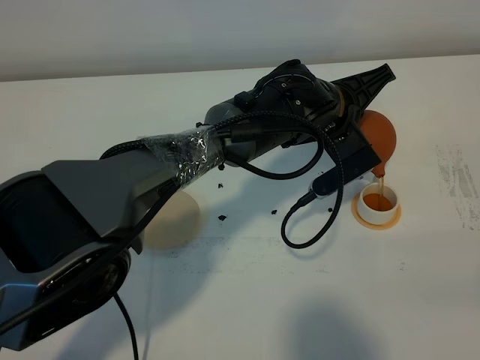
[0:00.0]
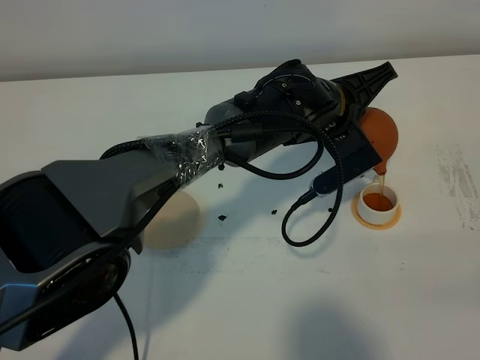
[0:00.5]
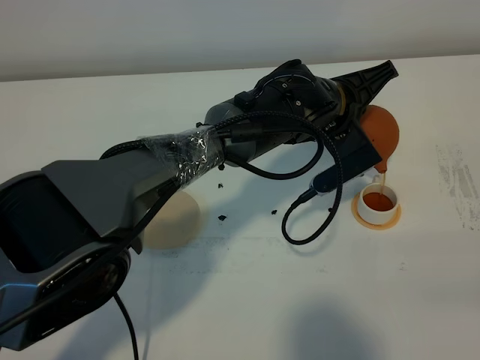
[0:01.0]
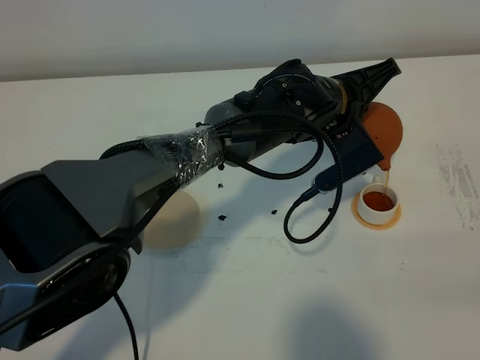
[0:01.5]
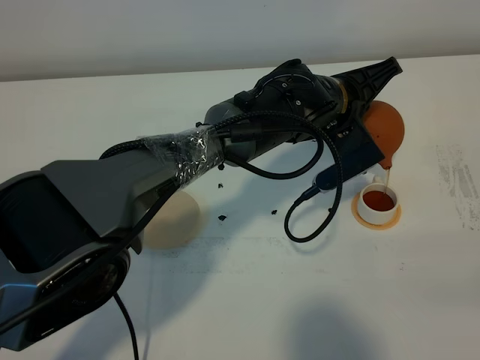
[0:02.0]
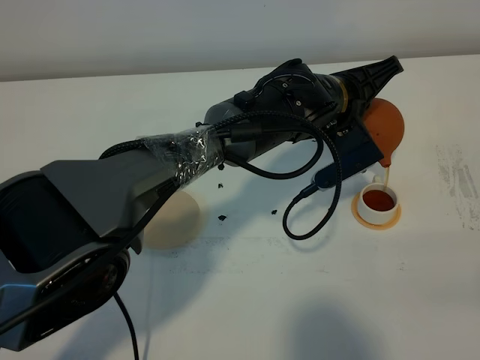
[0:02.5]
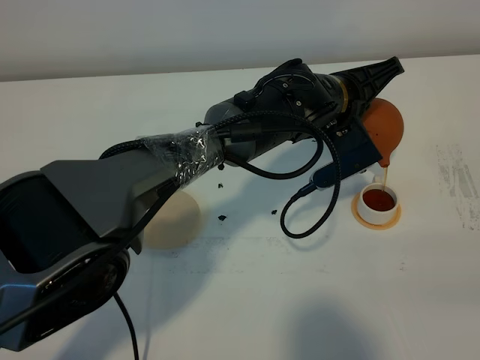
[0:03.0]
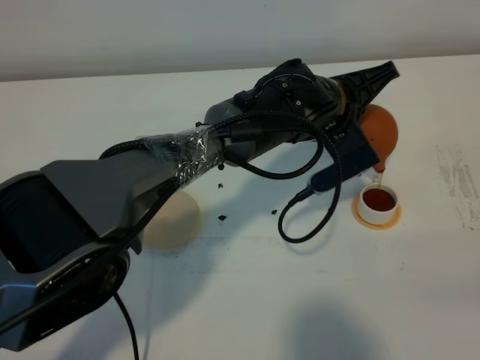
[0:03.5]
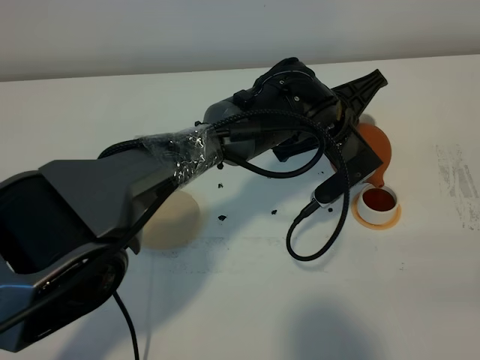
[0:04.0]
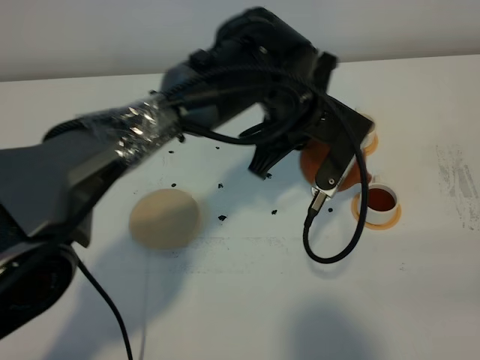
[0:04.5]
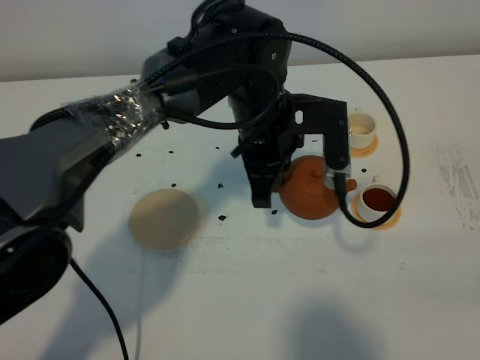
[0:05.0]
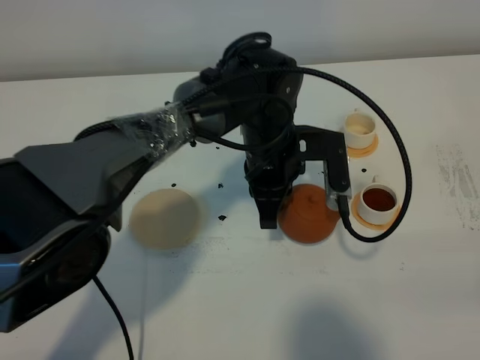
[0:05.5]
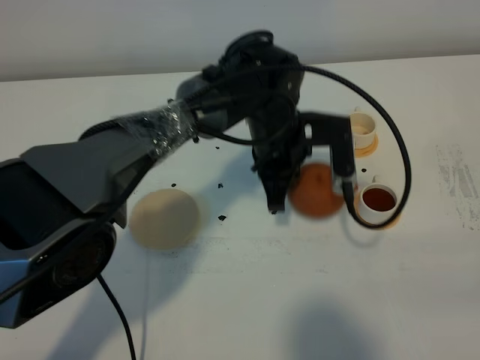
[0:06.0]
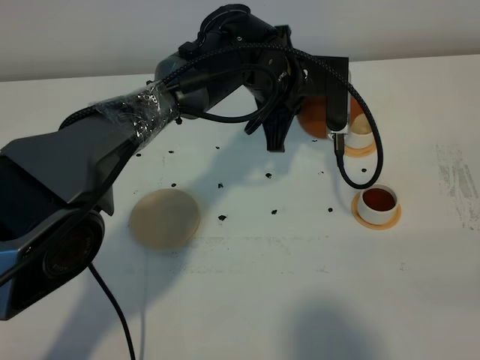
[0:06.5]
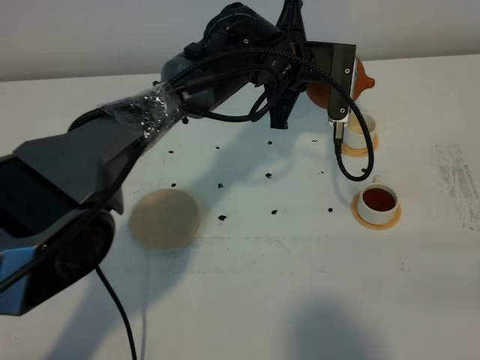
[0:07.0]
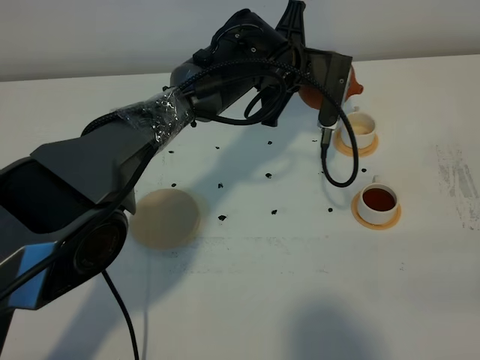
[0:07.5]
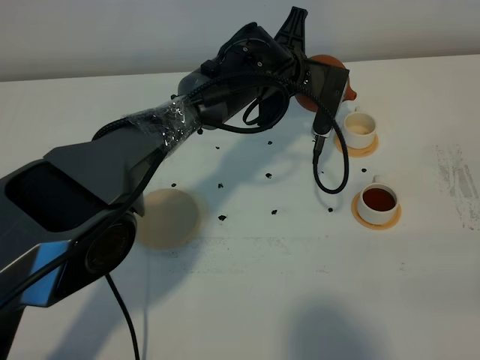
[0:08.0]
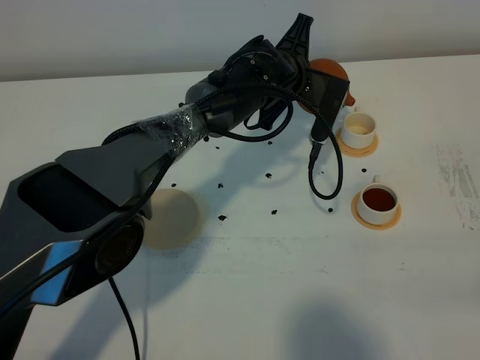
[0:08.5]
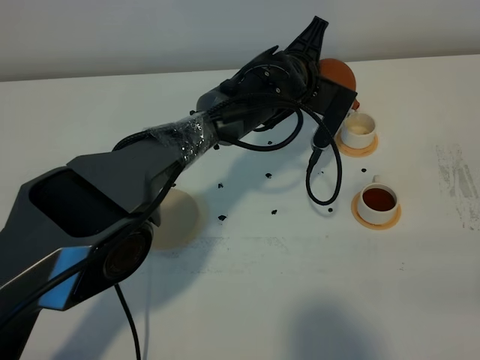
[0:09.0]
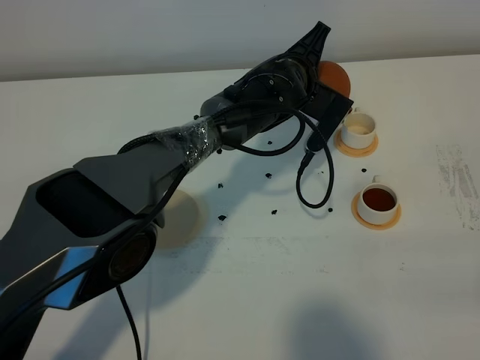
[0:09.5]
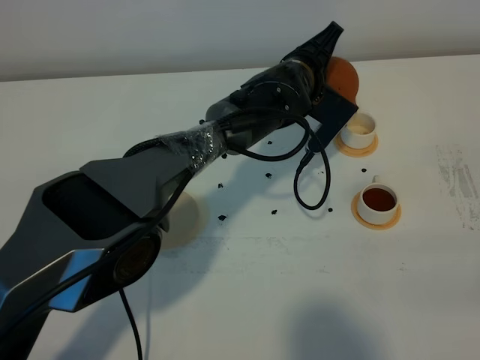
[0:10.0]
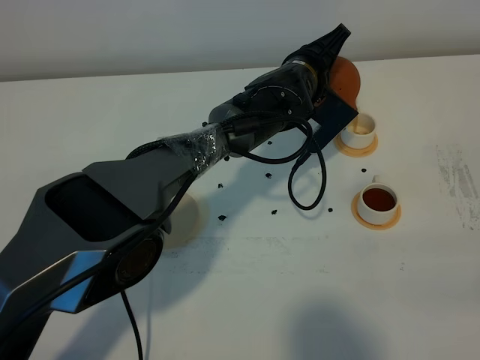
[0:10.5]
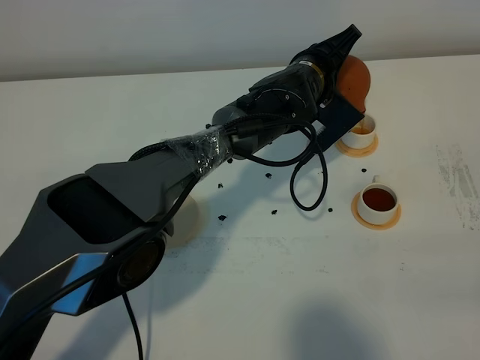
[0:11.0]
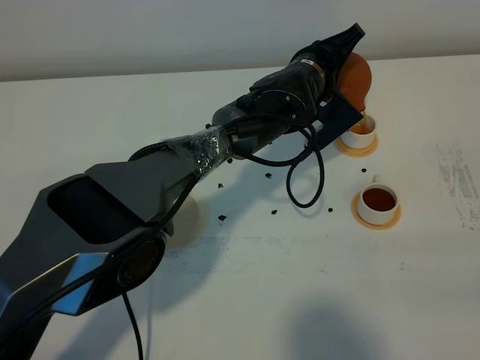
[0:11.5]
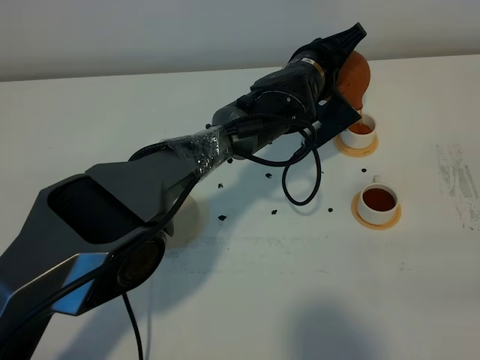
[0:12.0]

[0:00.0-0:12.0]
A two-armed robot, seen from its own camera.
Task of the whole recording: grasp the brown teapot and pour the tea into the two white teacups one by one, put the brown teapot back in its original place.
Step, 0:00.0 to 0:04.5: Pour tea into the teacup with the left gripper.
0:00.0 to 0:02.0: Both grippers stay put.
0:02.0 to 0:04.0: The grippers move only a little.
0:04.0 to 0:06.0: The left gripper travels to the left by roughly 5 cm.
0:06.0 to 0:08.0: The left gripper heads forward, covering roughly 10 cm.
0:10.0 to 0:12.0: The grippers stay close to where they were, moving slightly.

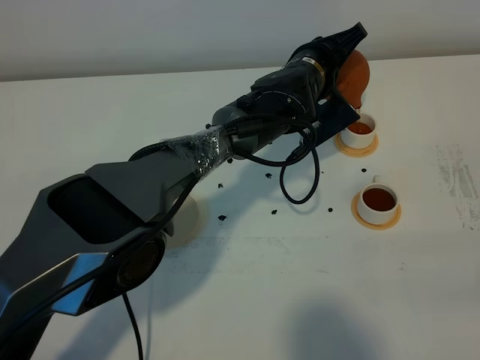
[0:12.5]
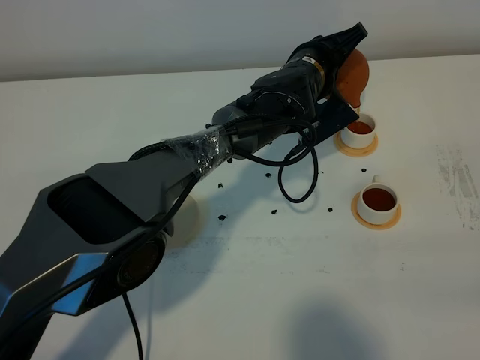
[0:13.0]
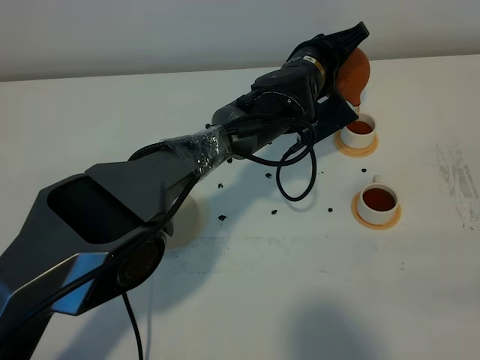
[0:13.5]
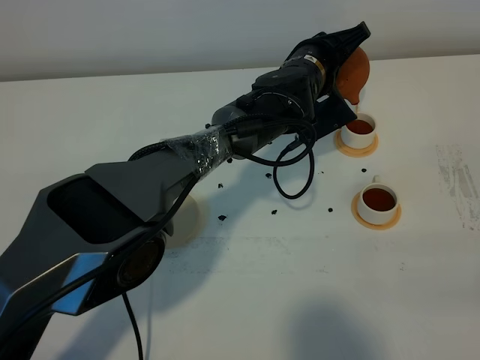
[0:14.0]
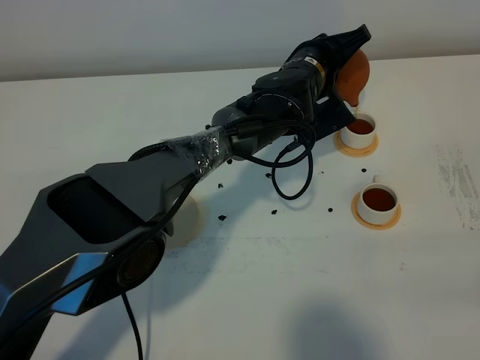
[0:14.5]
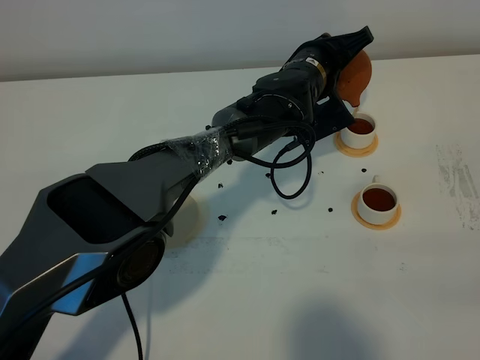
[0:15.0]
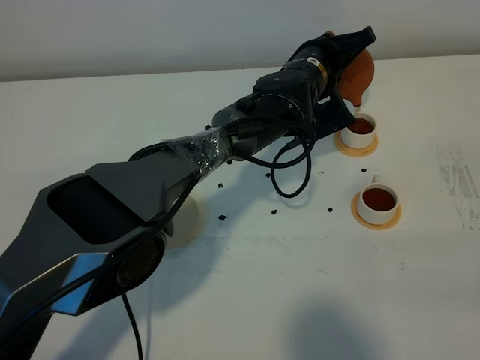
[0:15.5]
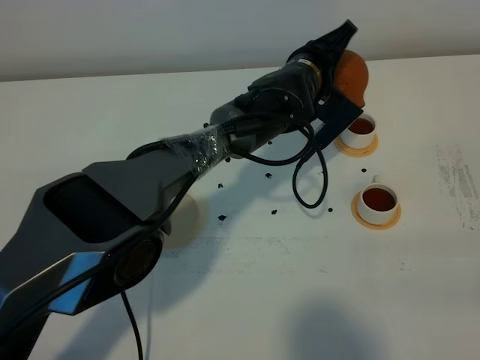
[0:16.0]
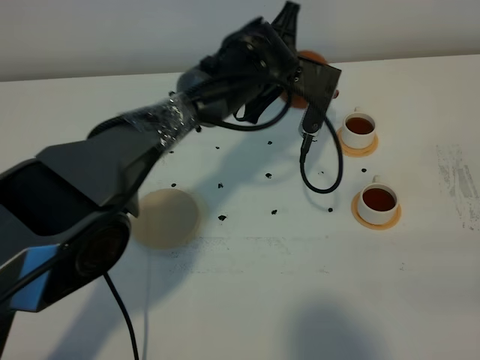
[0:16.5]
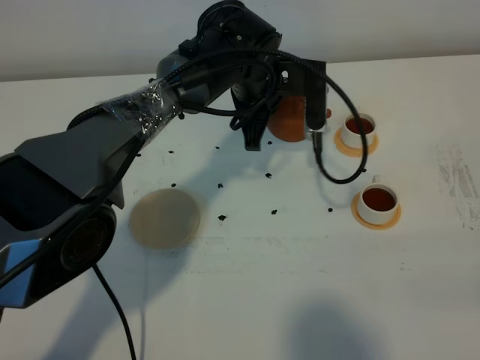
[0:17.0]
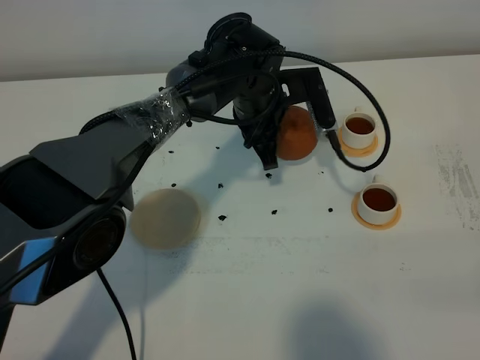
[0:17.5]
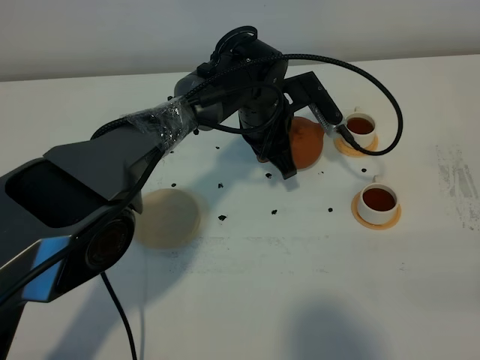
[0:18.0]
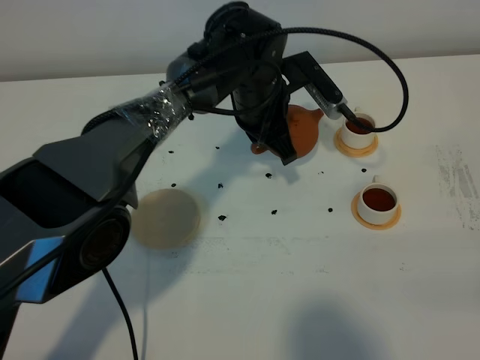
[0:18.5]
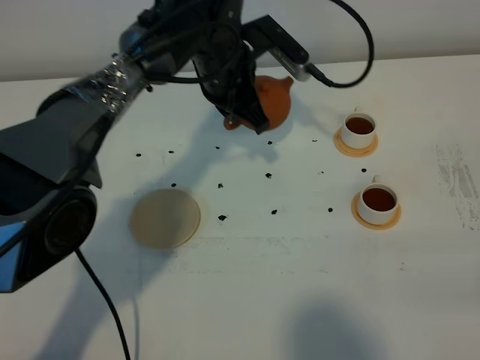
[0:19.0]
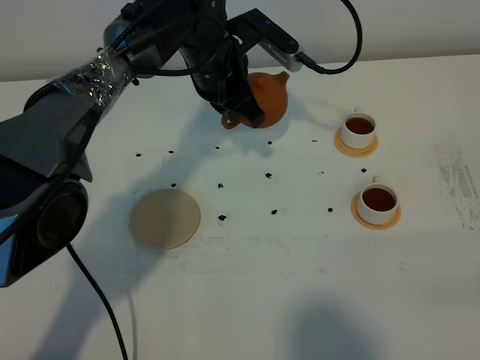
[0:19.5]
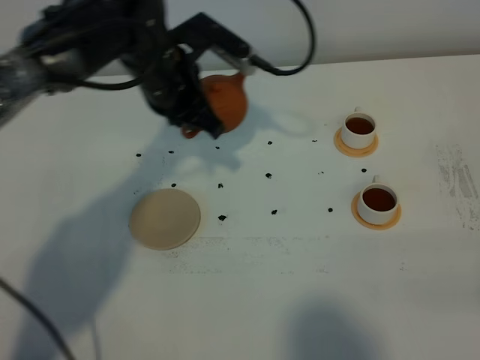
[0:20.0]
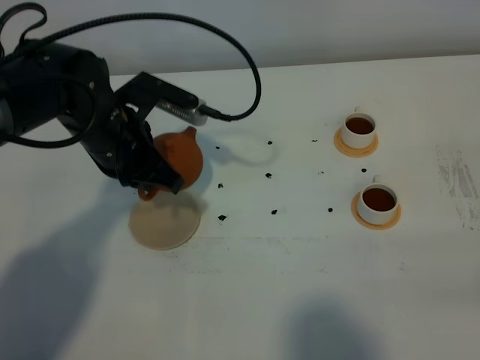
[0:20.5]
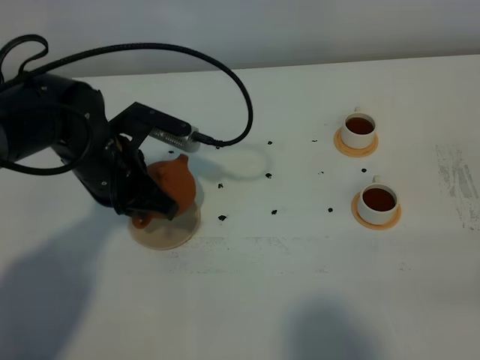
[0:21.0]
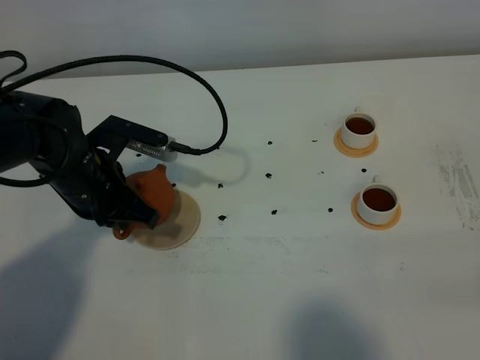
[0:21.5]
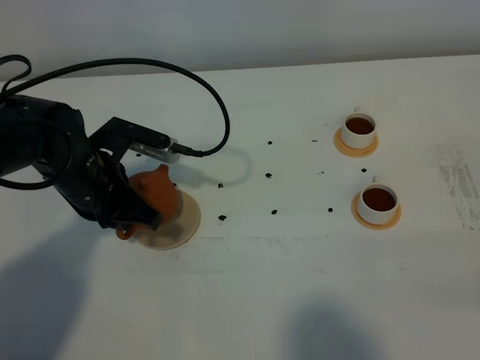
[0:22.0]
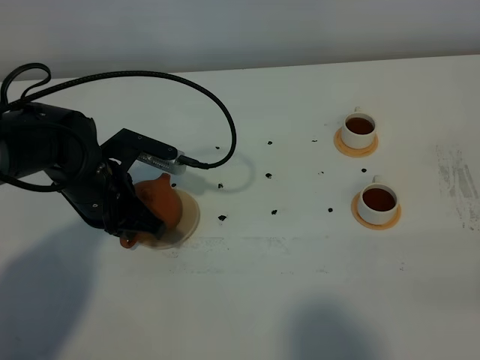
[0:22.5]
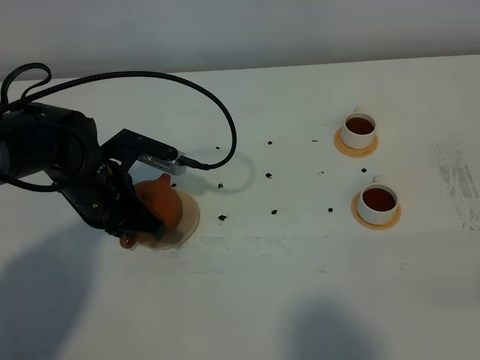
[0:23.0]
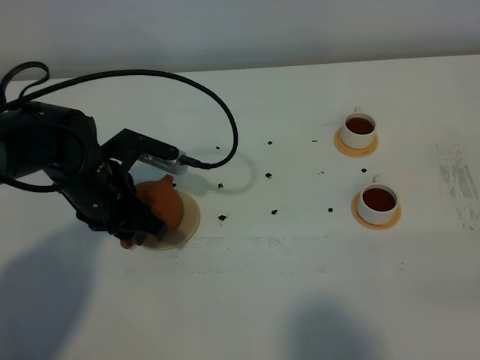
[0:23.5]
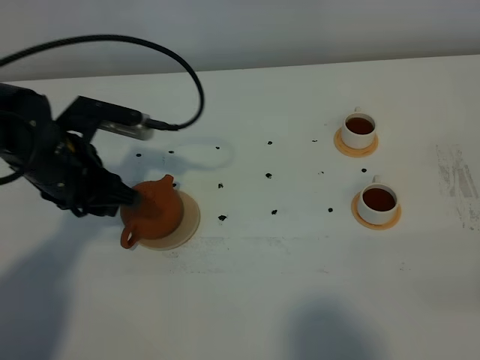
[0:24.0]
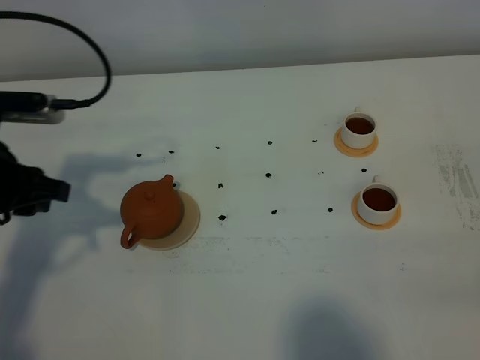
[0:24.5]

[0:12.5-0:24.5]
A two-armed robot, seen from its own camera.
Task of the whole recording: grasp the brown teapot and pour the tea into the two white teacups one by one, put the brown teapot back in its original place.
Step, 0:12.5 to 0:16.0: Pour tea into the teacup with the left gripper.
0:12.5 to 0:14.5: There are only small adjustments of the grippers.
0:14.5 to 0:16.5: The left gripper heads to the left, covering about 5 cm.
0:18.5 to 0:20.5: The left gripper shifts about 20 cm to the left and backward.
0:20.5 to 0:22.5: The left gripper travels downward by approximately 5 cm.
0:22.5 to 0:24.5: The left gripper goes approximately 15 cm to the left and upward, and opens up.

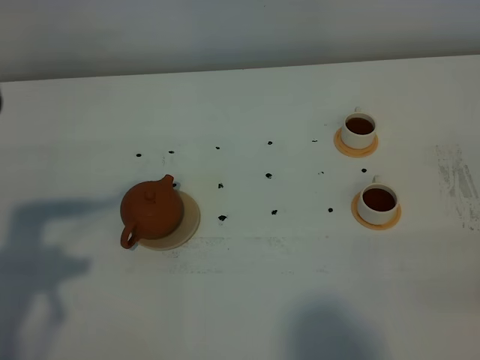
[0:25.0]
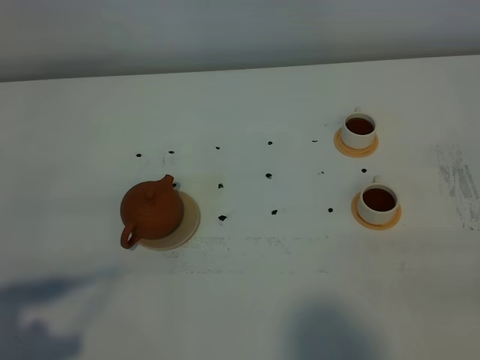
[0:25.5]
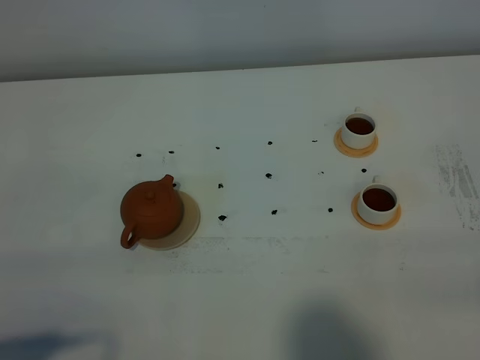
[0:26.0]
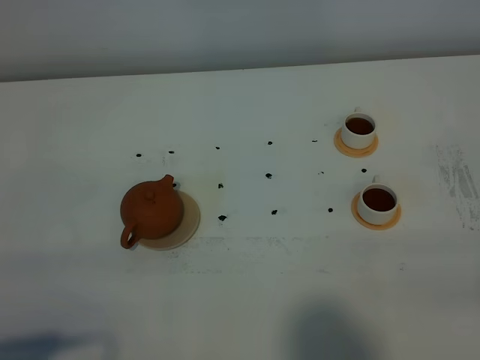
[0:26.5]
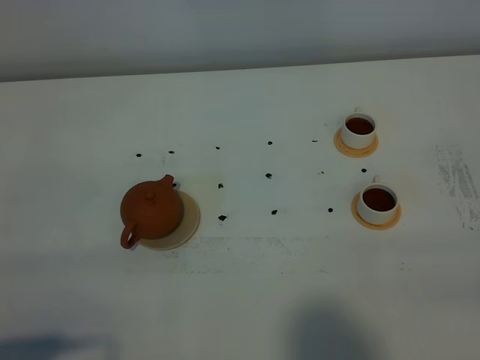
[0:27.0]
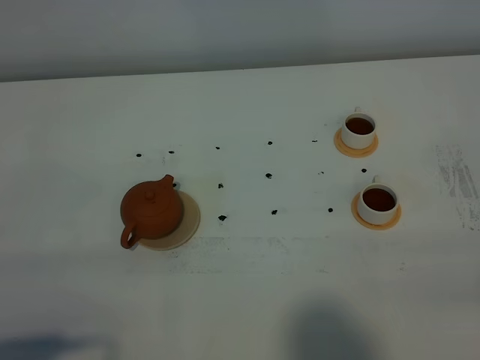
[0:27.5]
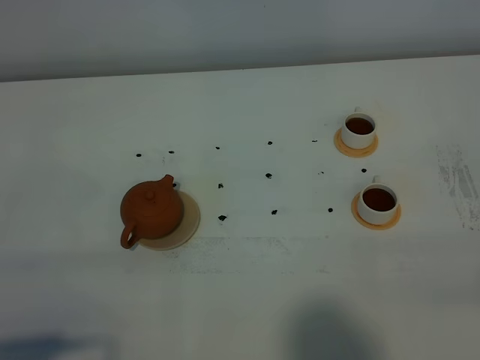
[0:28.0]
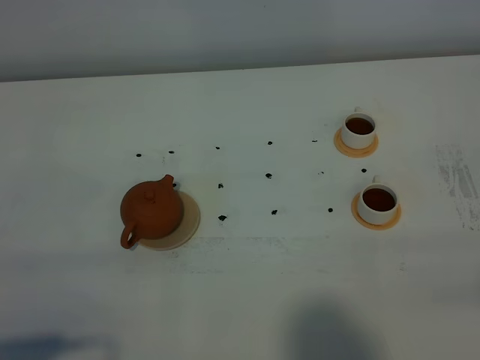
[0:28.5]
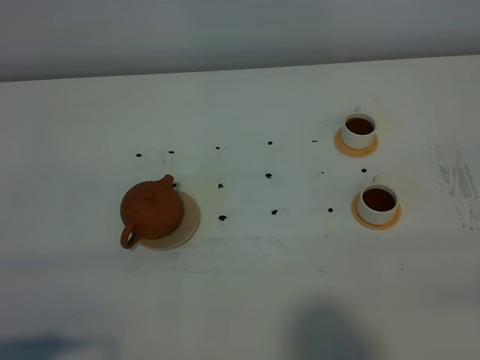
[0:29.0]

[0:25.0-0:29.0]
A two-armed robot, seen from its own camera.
Task of the whole recording: grasp the brown teapot and pour the tea into the two white teacups one by one, put the brown teapot back in its original place.
0:25.0 to 0:27.0: The left gripper moves backward, roughly 15 cm.
0:27.0 to 0:29.0: Both grippers stay put.
